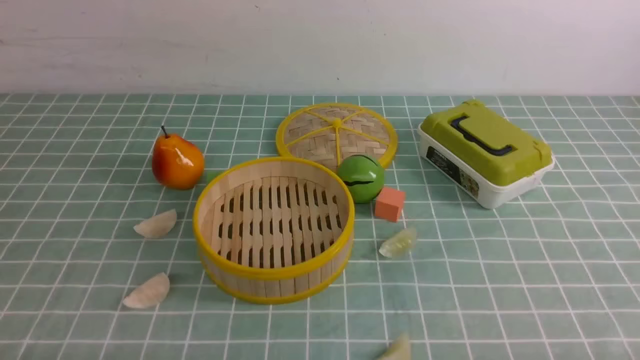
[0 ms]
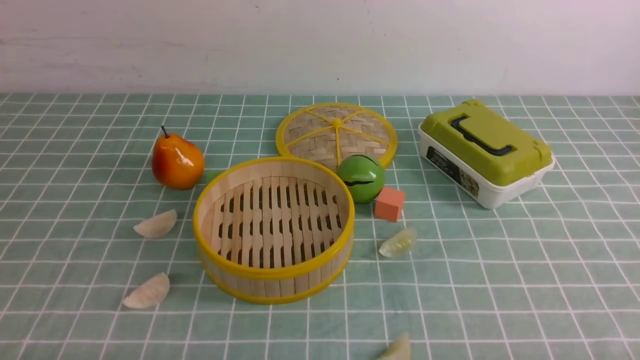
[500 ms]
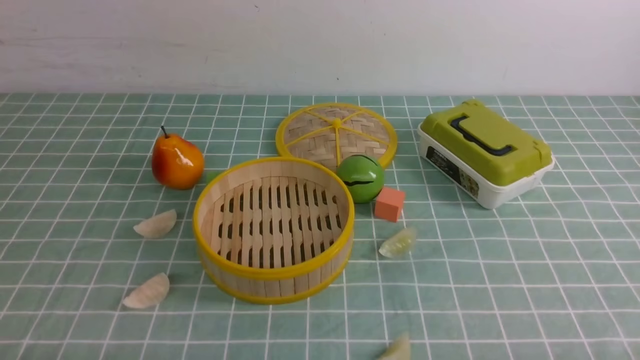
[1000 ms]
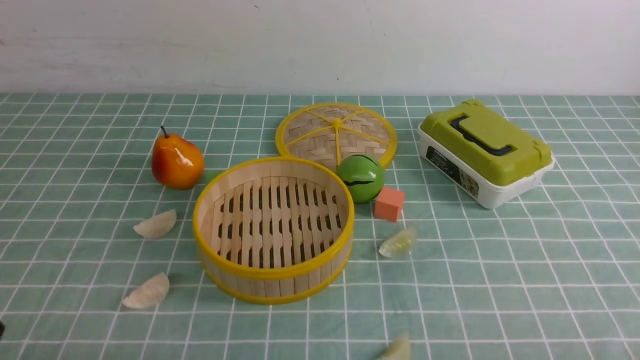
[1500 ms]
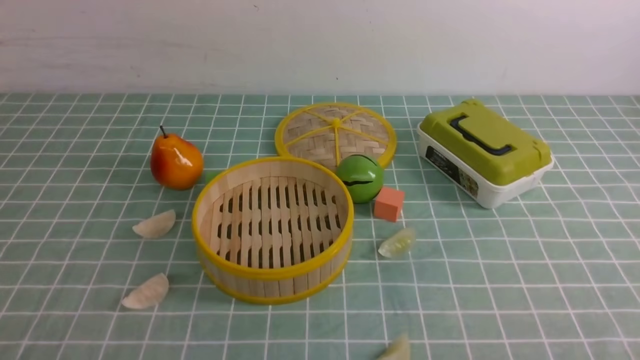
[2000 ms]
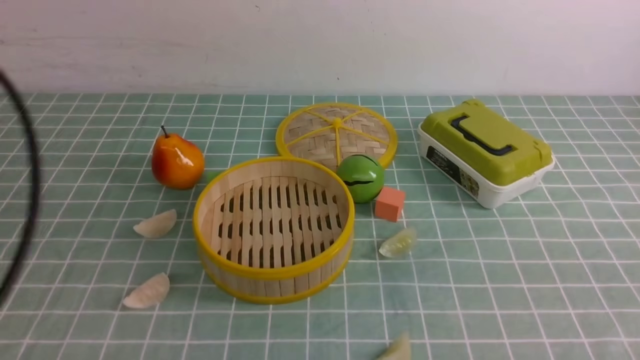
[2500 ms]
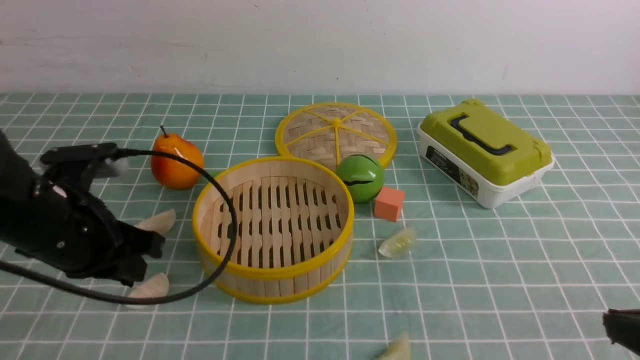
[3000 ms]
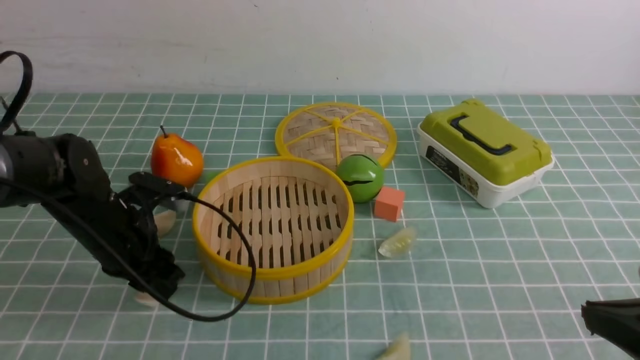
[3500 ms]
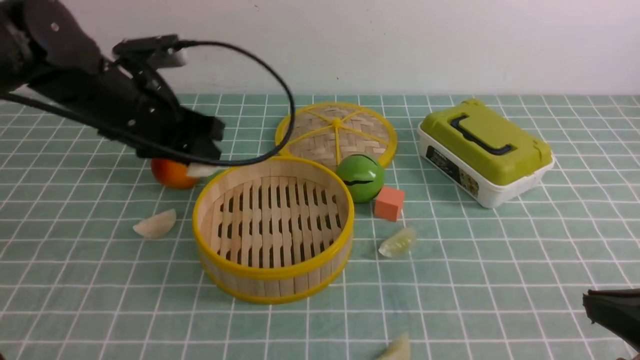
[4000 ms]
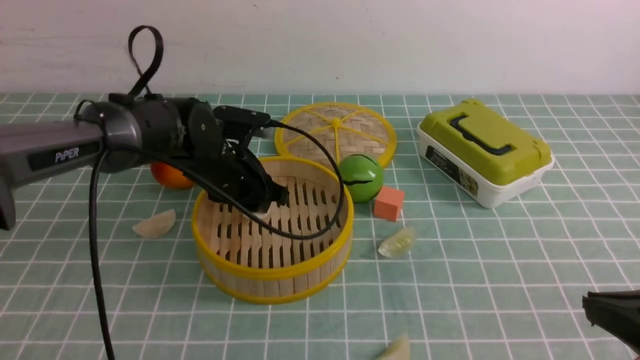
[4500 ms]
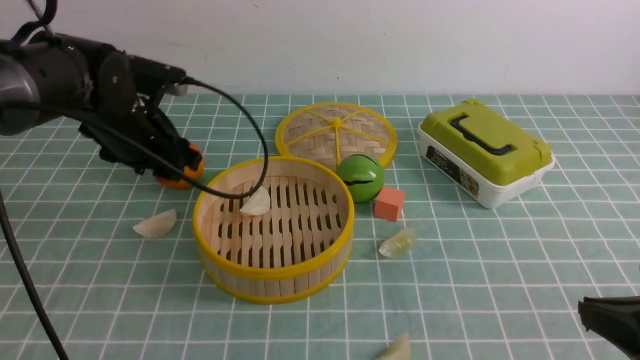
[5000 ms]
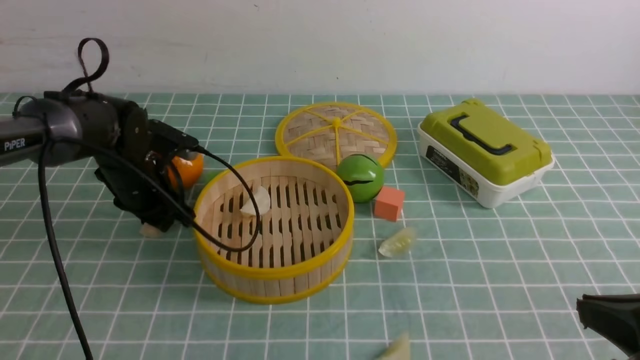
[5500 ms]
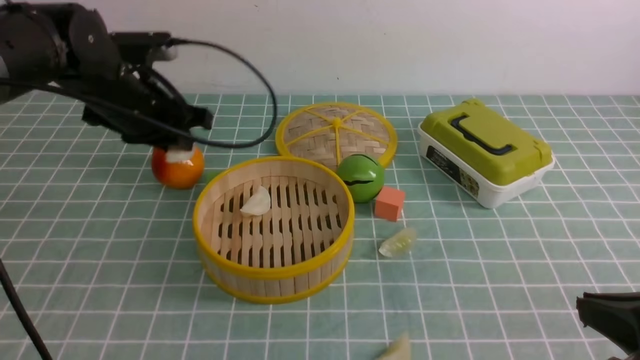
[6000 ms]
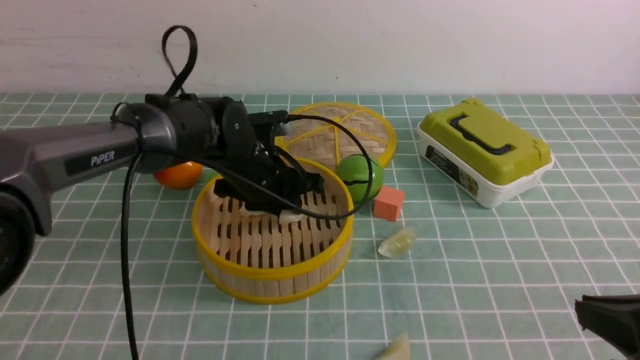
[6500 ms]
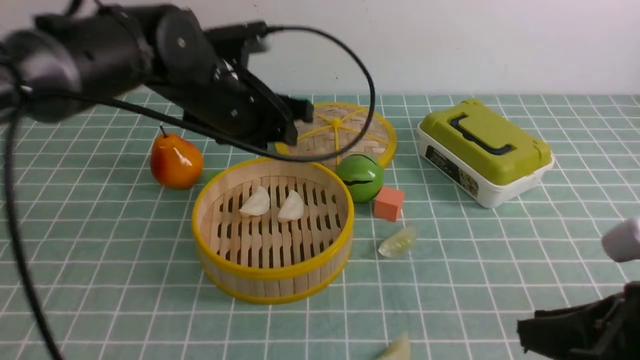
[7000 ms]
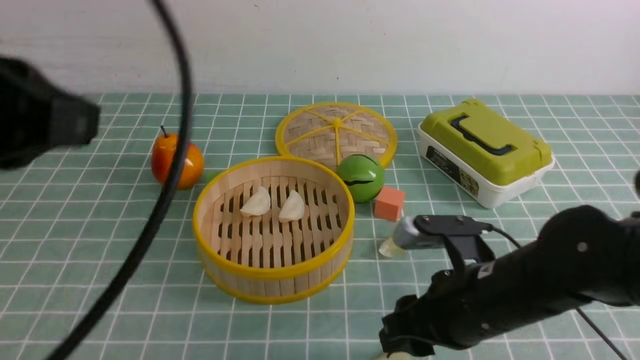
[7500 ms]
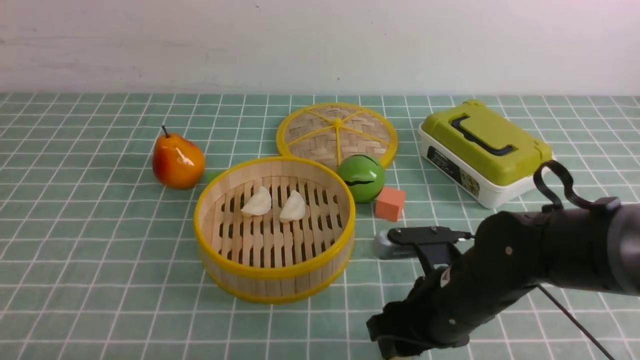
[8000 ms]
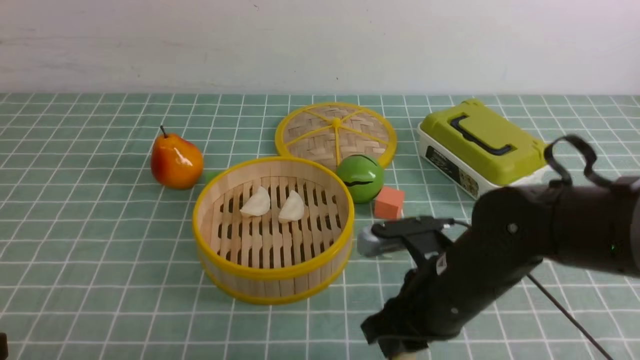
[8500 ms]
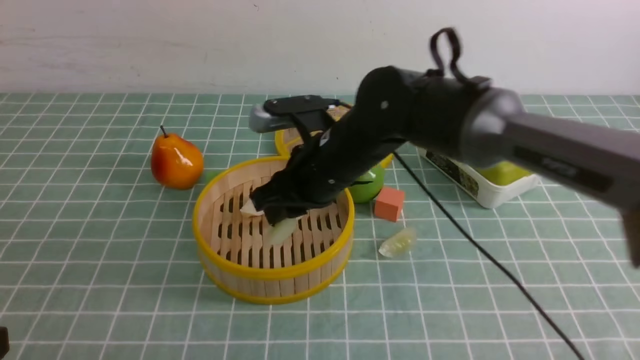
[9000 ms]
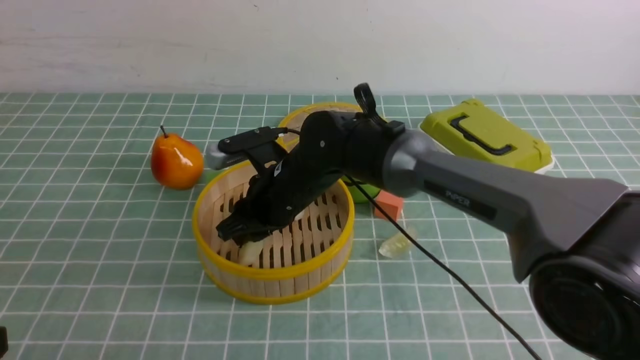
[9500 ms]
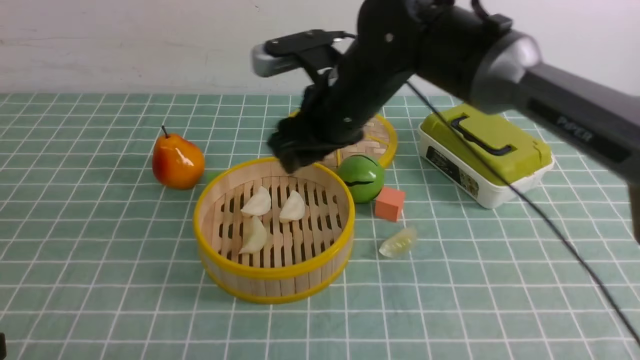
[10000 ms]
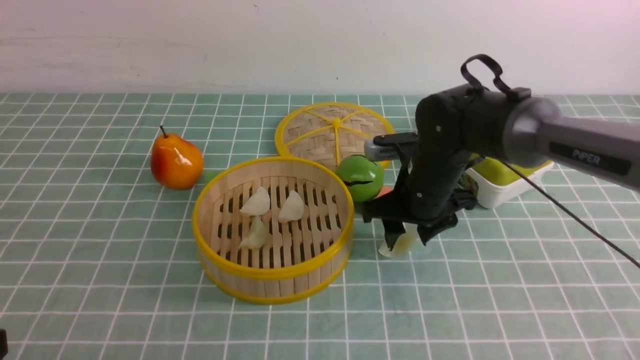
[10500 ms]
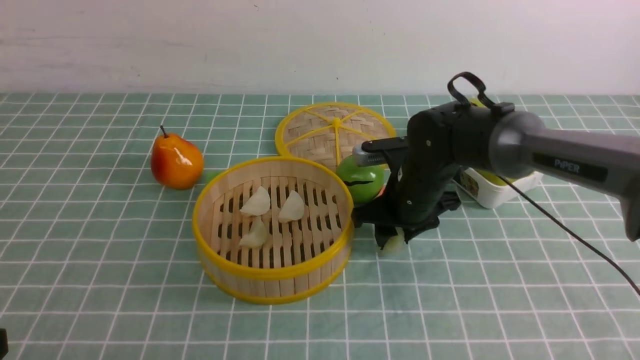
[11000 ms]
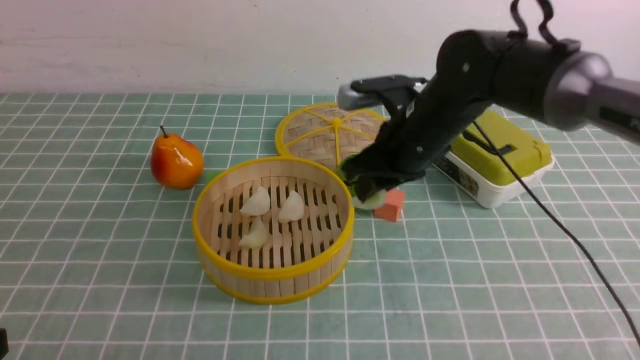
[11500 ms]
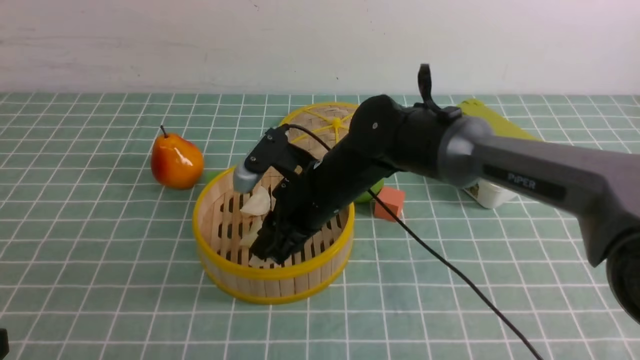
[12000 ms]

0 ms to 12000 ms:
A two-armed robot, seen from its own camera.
Task of the whole recording: put the dumplings into the steamer on the table with the blue tablecloth.
Step, 0 ms to 3500 ms: use the left arm to grab a dumpling.
Step, 4000 ms to 5000 ms: use the left arm to put the dumpling into the steamer.
Step, 5500 ms to 6000 ms: use the left arm to grab a dumpling.
Step, 7500 ms to 8500 ms: use the right arm to grab a dumpling.
Step, 9000 ms to 9500 ms: use the right arm to put the dumpling into the steamer.
Step, 10000 ms to 11500 ms: use the right arm to grab a dumpling.
2000 ms to 4000 ms: The right gripper heads forward, covering some 10 cm, and closes. The left gripper moves forward, some 35 cm, and closes, then opens again.
4000 ms to 6000 ms: The left gripper swings left and right, some 10 cm each way, with 2 reversals, and opens and closes again.
6000 ms to 8000 ms: The left gripper is displaced backward by roughly 35 cm, and closes, while the right gripper travels to the left, forward and downward by roughly 20 cm, and opens up.
8000 ms to 10000 ms: The right gripper moves forward, upward and to the left, roughly 20 cm, and closes, then opens again.
10000 ms to 12000 ms: The right gripper is displaced downward by some 5 cm, moves some 10 cm to the right and comes back, and closes.

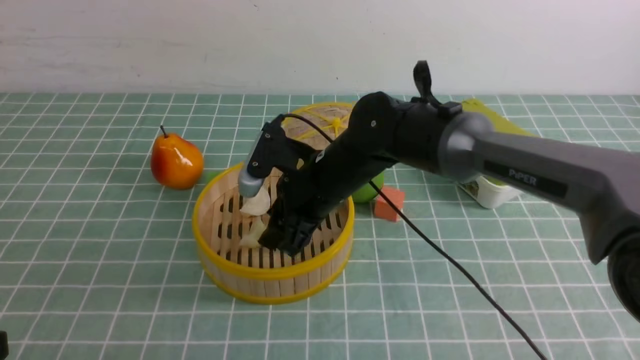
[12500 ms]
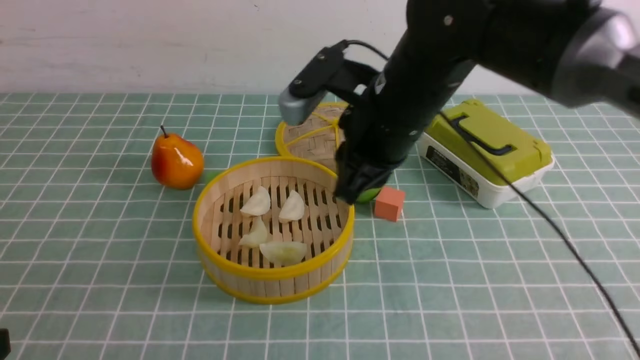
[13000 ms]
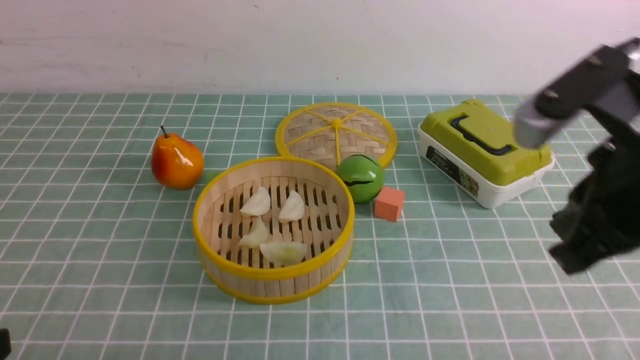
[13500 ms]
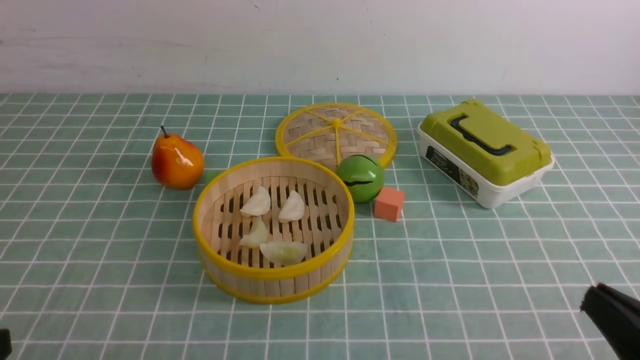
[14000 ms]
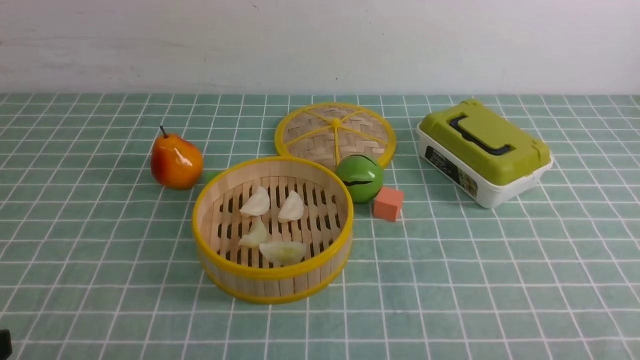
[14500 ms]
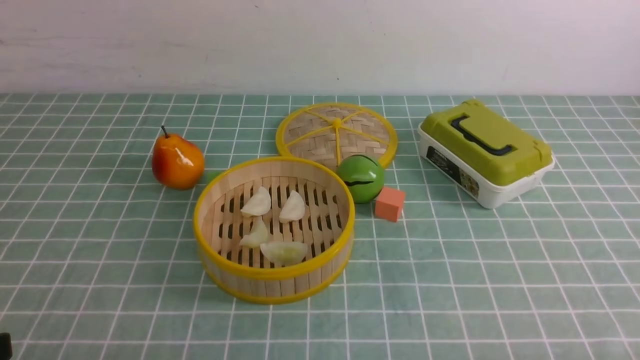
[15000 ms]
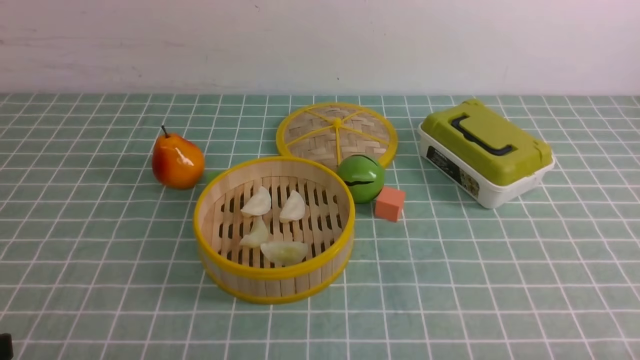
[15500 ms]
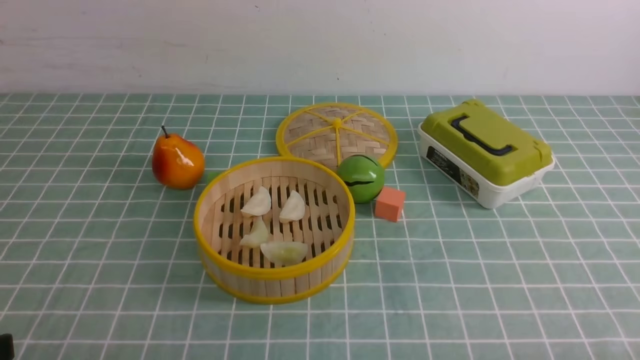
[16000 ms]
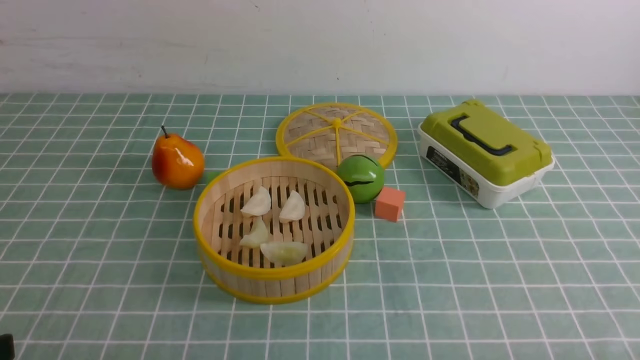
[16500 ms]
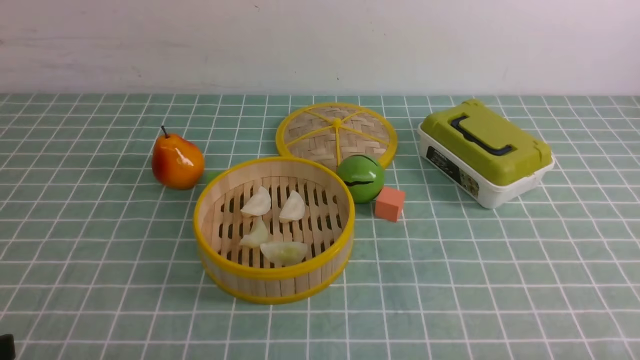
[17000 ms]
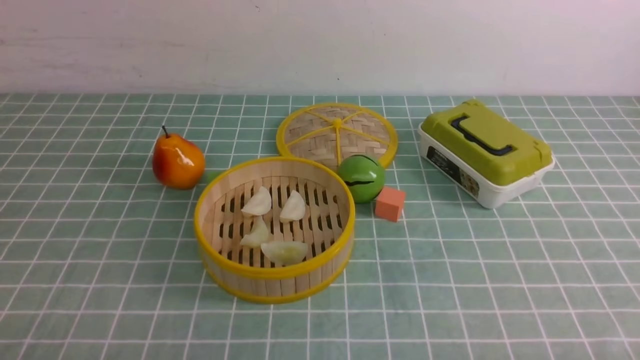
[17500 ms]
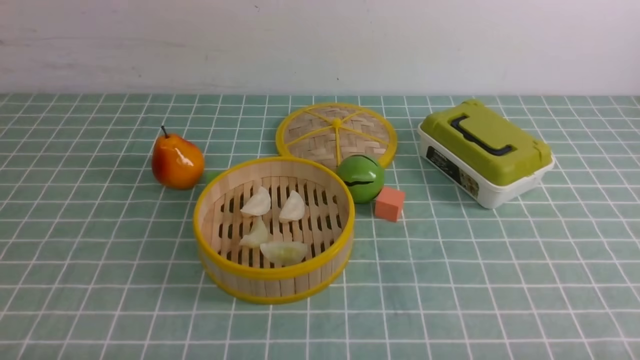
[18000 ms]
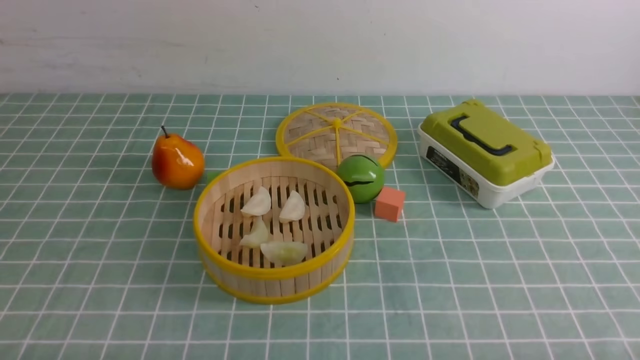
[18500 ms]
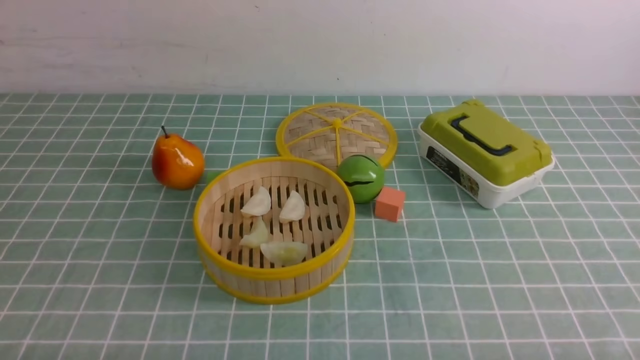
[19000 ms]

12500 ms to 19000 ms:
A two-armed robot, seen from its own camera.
Task of the whole recording: put the dumplings into the steamer on the table with the blue tablecloth.
12500 ms to 14500 ms: The right gripper goes approximately 40 cm backward and to the right, and closes its fingers.

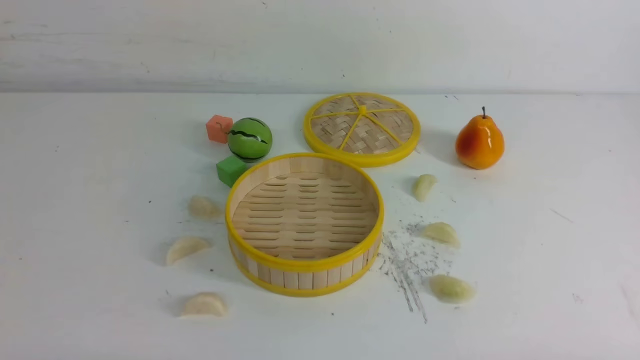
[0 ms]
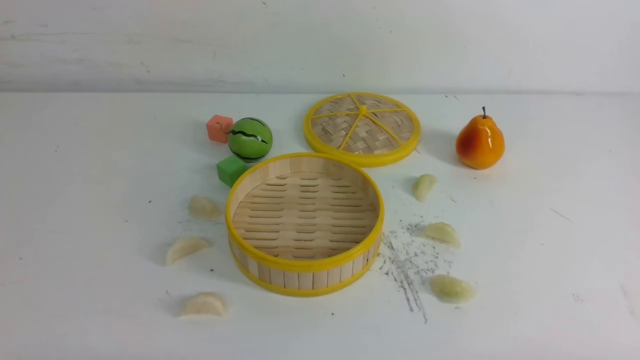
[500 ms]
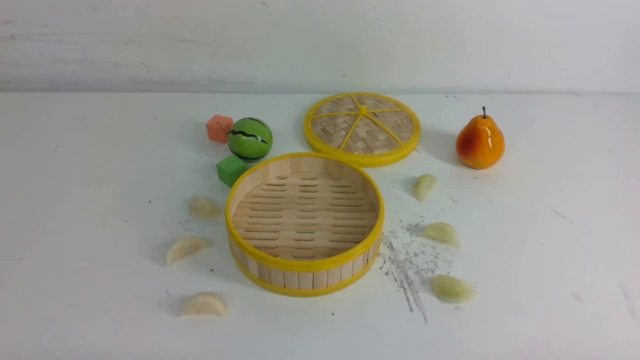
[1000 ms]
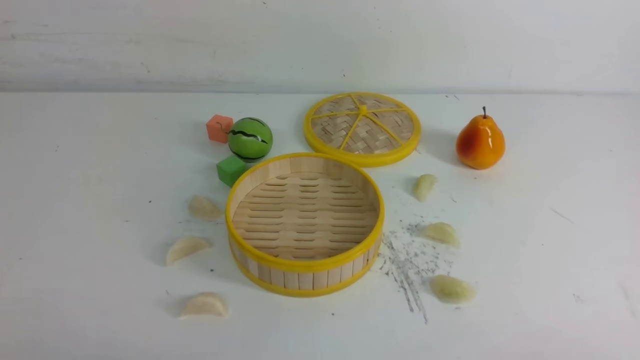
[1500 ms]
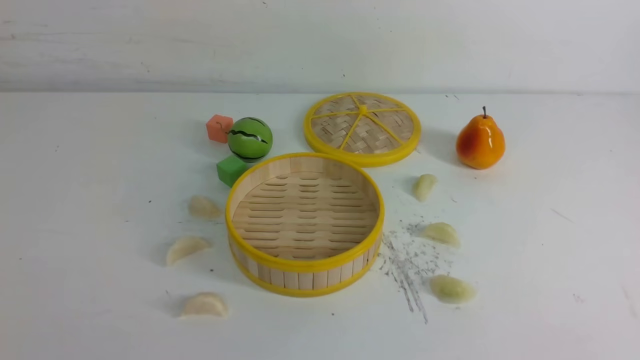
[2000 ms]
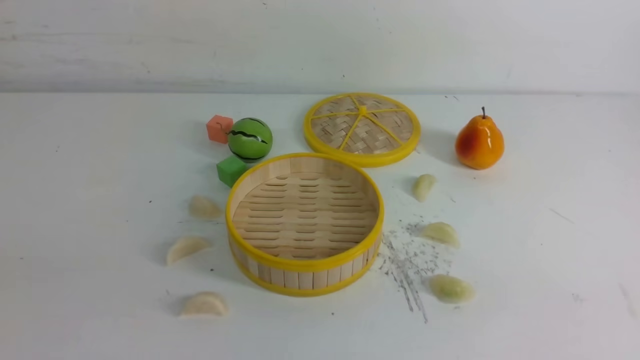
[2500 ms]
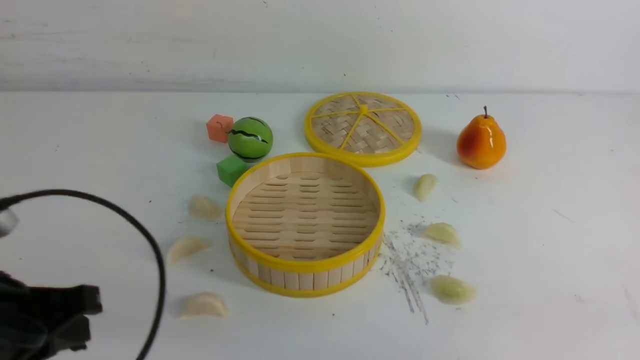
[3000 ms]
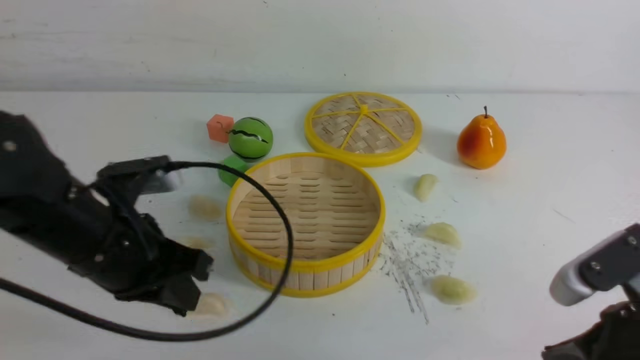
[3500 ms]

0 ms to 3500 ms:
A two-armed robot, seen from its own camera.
Task of the whole recording: put the dumplings into the steamer on the white table.
2000 ms to 3500 ms: The right gripper goes roughly 15 cm forward and to the left; the left gripper is displaced forward by about 20 cm.
